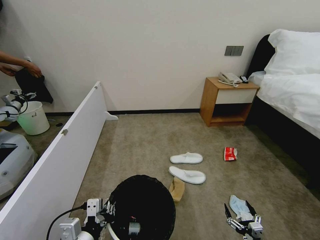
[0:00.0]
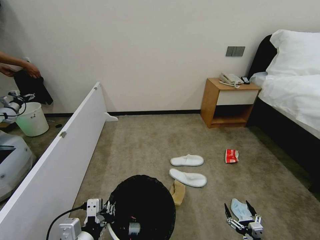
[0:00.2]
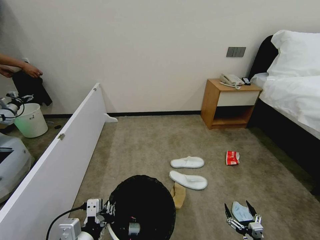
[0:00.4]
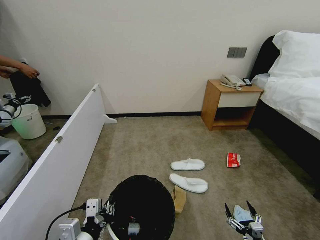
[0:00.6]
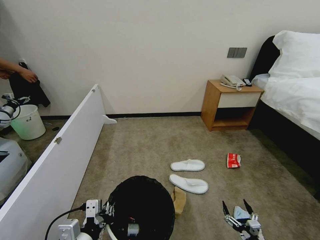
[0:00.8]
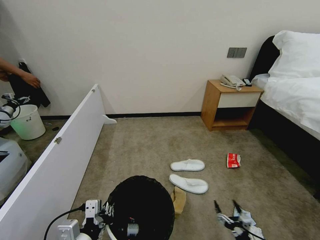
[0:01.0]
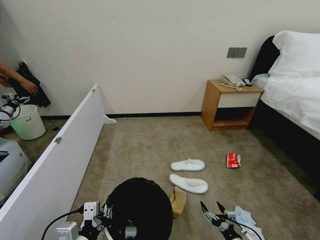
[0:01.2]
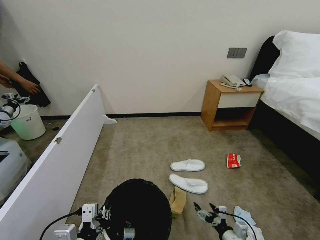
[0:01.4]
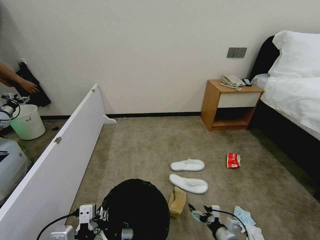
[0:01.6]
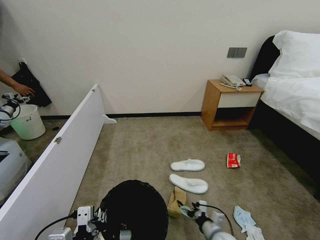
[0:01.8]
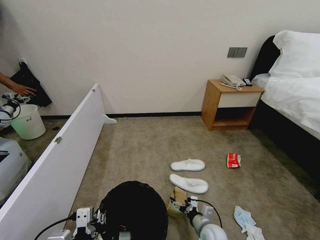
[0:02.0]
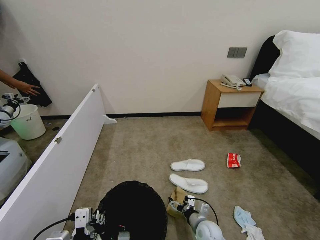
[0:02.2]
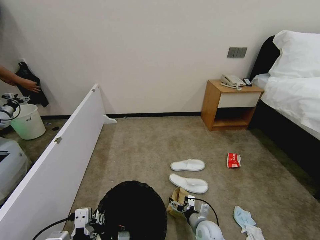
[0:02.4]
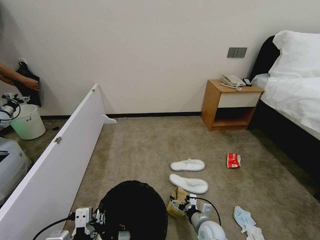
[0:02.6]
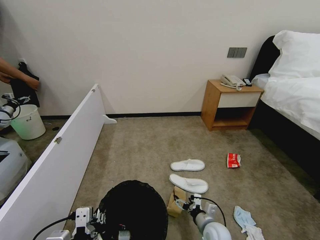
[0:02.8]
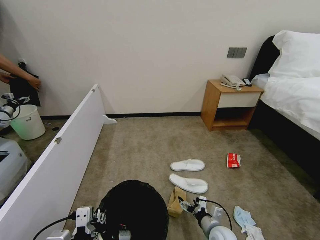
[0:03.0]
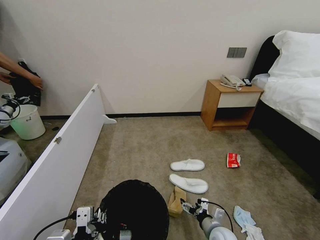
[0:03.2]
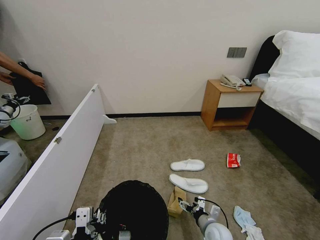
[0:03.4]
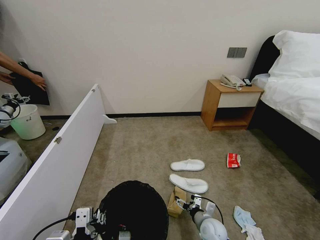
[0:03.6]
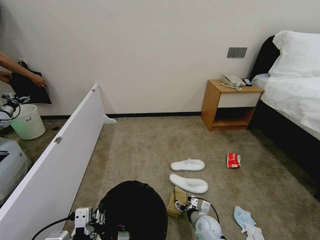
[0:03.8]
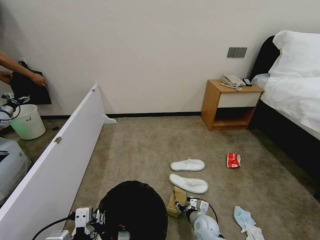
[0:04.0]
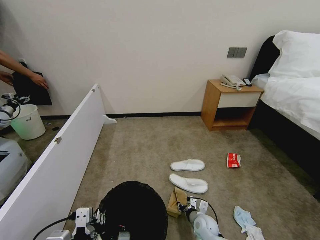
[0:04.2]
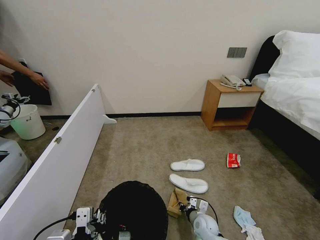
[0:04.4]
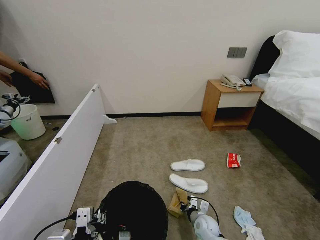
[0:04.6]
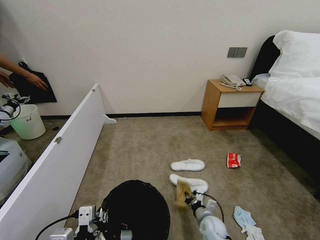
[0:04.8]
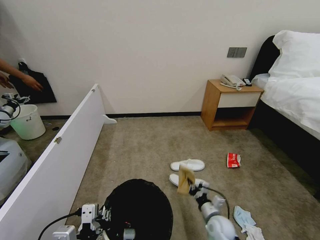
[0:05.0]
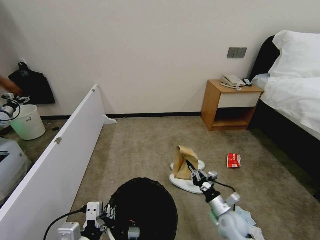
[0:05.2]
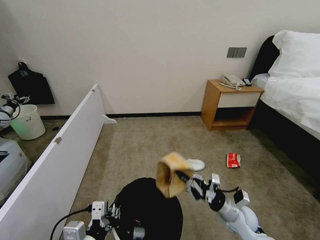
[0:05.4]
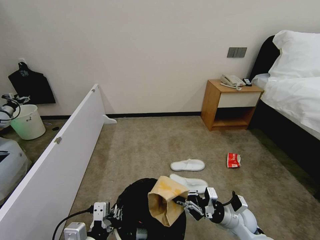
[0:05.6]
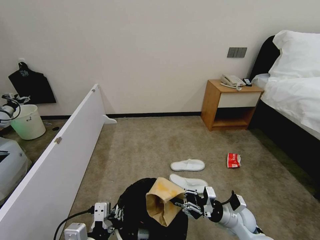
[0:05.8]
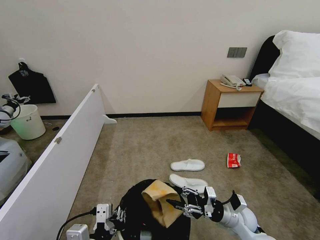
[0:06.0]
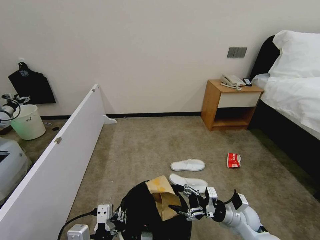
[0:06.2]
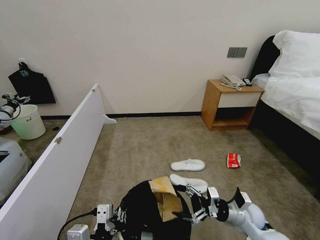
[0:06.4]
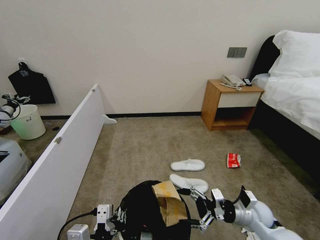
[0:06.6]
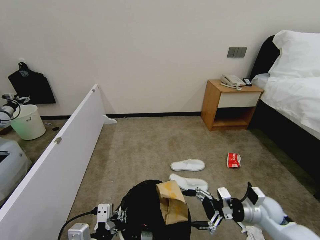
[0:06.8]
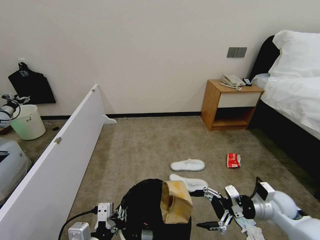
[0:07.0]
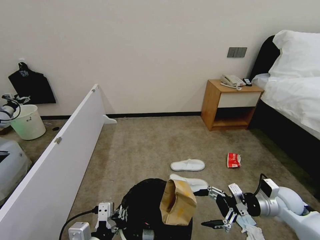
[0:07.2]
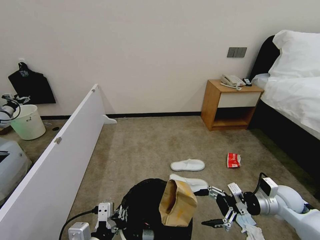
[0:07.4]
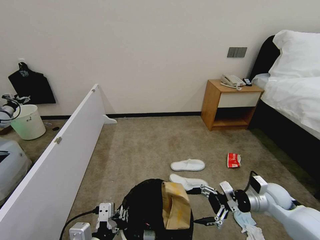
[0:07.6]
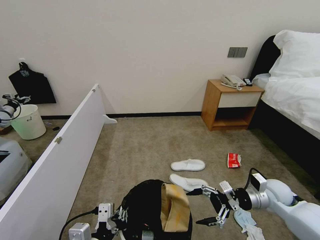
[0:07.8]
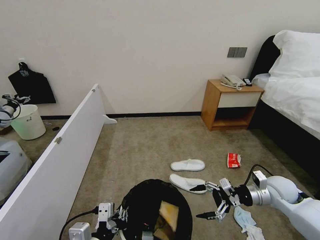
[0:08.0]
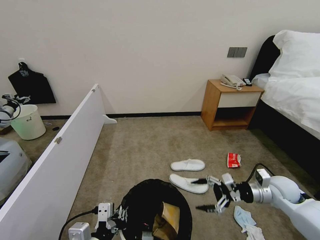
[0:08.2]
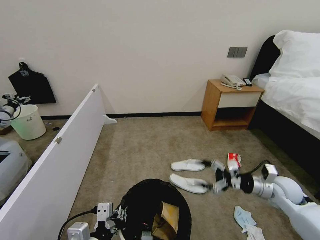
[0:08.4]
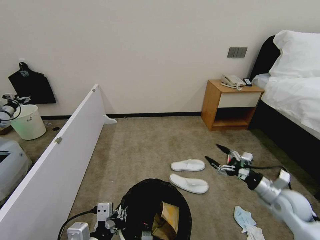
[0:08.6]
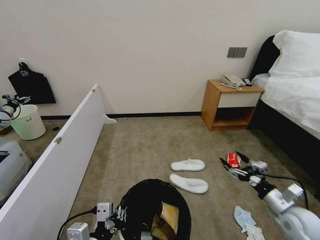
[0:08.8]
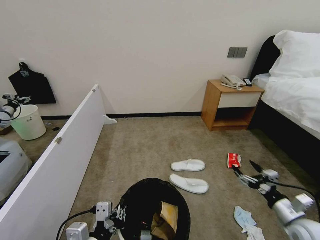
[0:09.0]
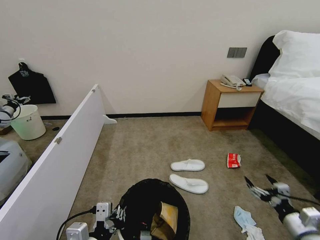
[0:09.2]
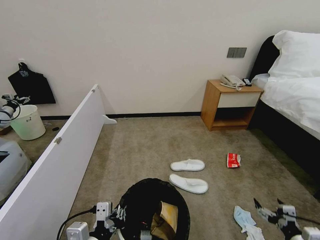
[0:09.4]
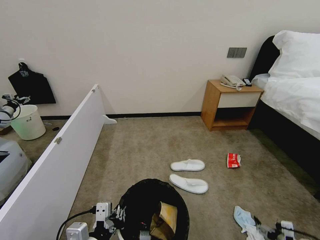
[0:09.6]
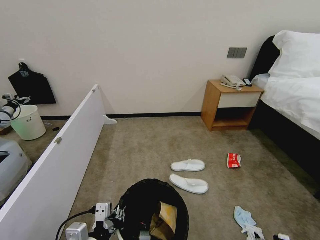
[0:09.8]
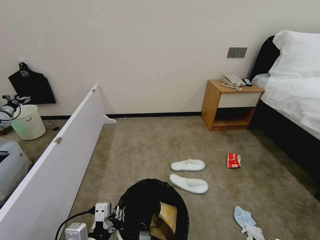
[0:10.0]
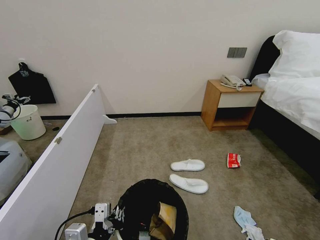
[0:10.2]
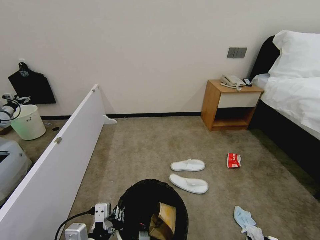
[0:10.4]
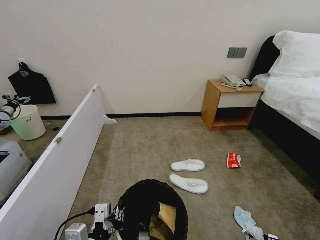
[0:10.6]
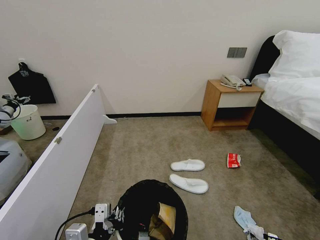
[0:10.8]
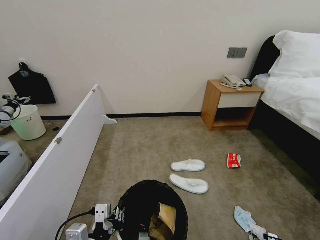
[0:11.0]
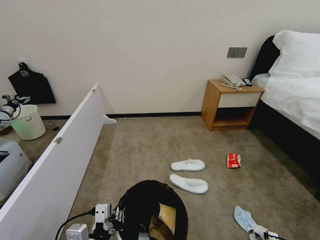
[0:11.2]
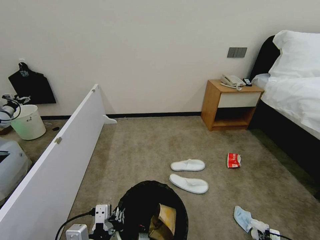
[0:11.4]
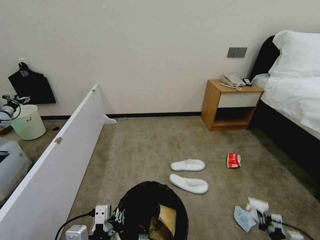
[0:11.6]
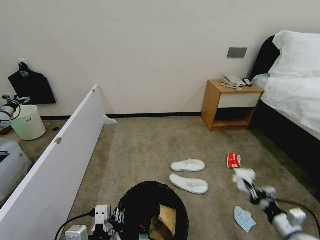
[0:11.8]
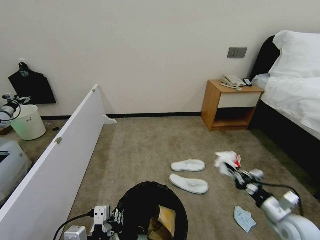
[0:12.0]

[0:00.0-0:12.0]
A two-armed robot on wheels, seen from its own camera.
Task of the whole recording: Pick up the trash bin, then pick up the garbage from the floor and place it into the trash bin.
0:00.0 to 0:01.6: The right gripper is displaced forward and to the left by some 15 cm.
0:01.6 to 0:03.0: The right gripper goes roughly 5 cm to the left.
0:03.0 to 0:04.4: The right gripper is displaced forward by some 5 cm, and closes its fingers.
0:04.4 to 0:06.0: The right gripper is displaced upward and to the right by approximately 15 cm.
0:06.0 to 0:07.6: The right gripper travels to the right and upward by about 15 cm, and opens its fingers.
0:07.6 to 0:09.0: The right gripper goes about 10 cm backward and to the right.
0:09.0 to 0:10.4: The right gripper travels downward by approximately 20 cm.
0:10.4 to 0:12.0: The right gripper goes roughly 25 cm upward and forward, and closes.

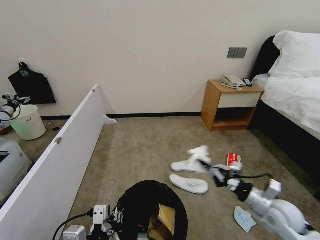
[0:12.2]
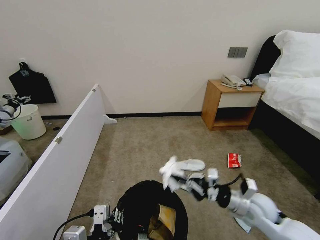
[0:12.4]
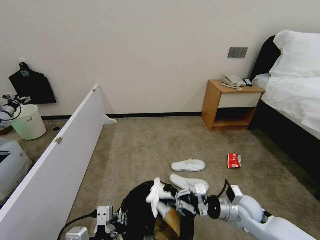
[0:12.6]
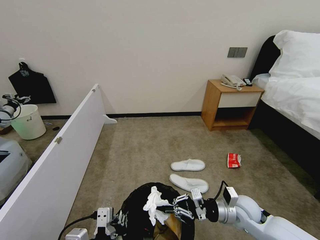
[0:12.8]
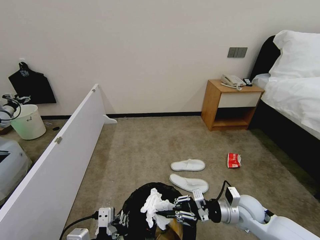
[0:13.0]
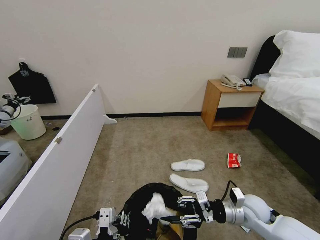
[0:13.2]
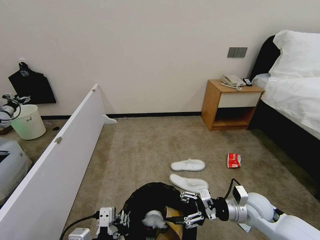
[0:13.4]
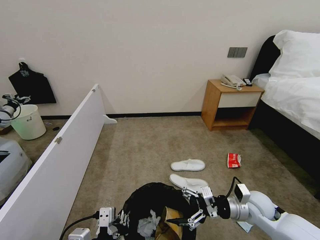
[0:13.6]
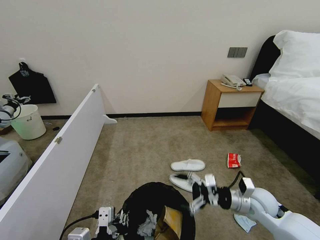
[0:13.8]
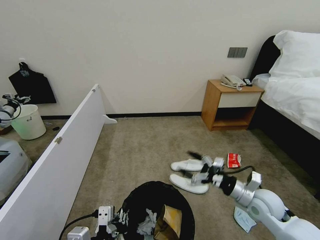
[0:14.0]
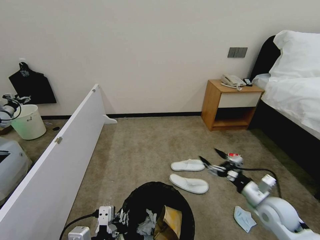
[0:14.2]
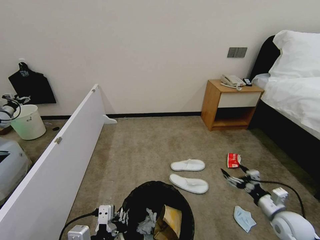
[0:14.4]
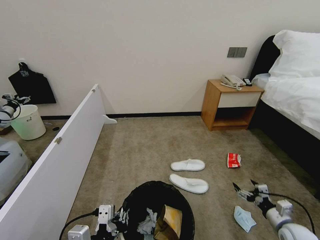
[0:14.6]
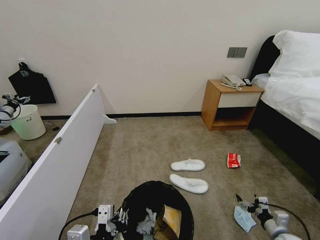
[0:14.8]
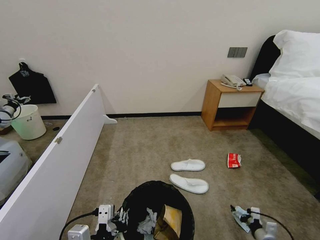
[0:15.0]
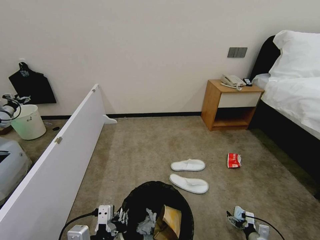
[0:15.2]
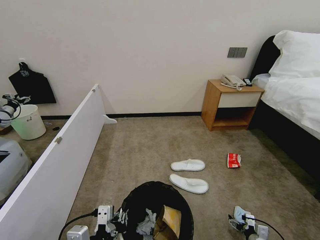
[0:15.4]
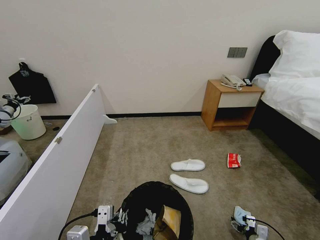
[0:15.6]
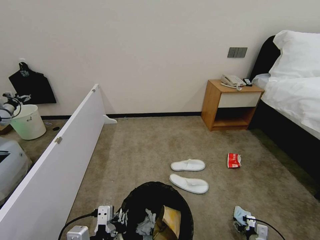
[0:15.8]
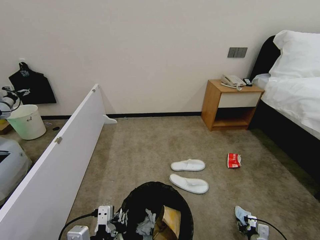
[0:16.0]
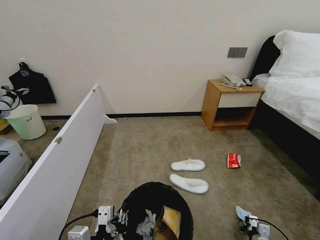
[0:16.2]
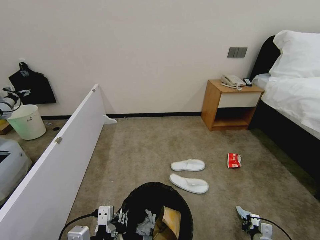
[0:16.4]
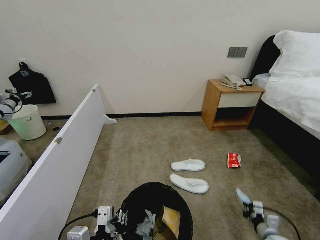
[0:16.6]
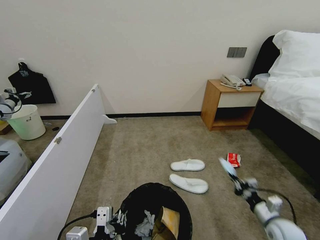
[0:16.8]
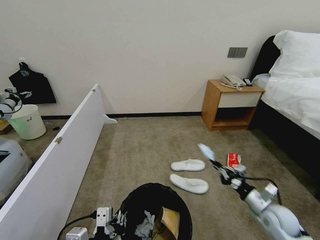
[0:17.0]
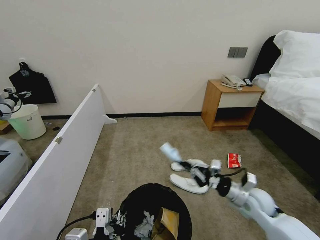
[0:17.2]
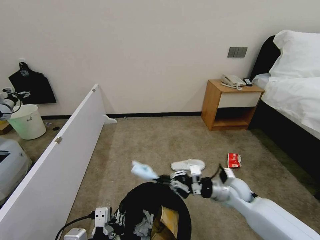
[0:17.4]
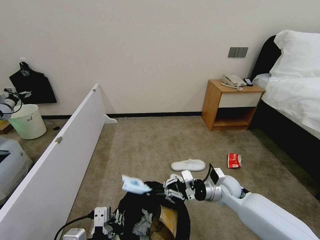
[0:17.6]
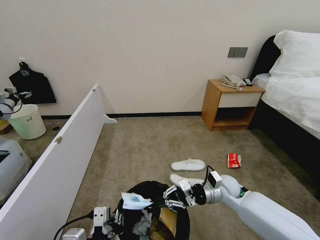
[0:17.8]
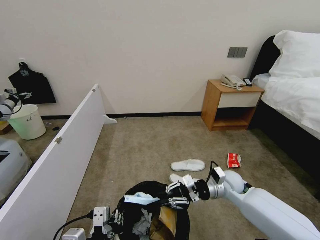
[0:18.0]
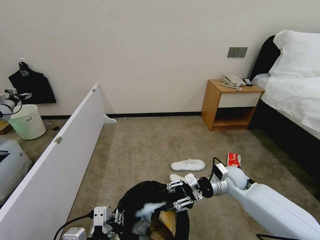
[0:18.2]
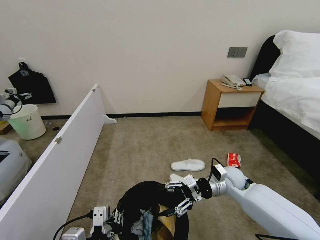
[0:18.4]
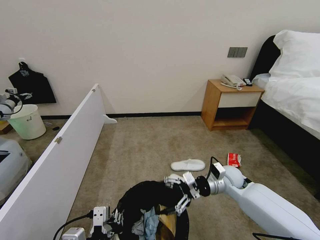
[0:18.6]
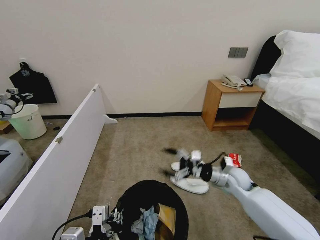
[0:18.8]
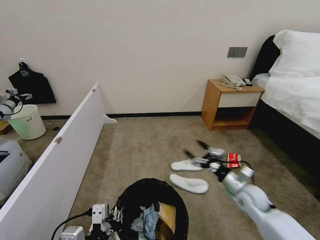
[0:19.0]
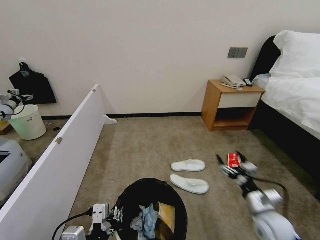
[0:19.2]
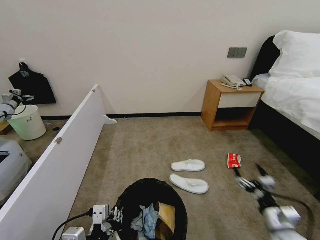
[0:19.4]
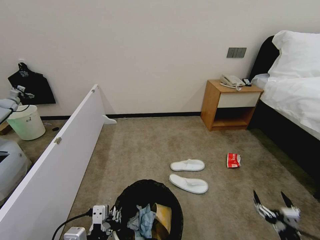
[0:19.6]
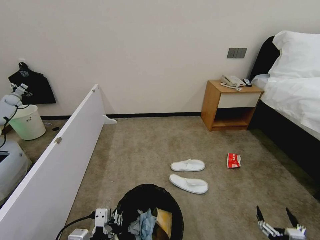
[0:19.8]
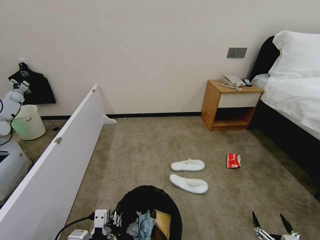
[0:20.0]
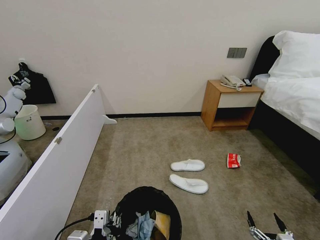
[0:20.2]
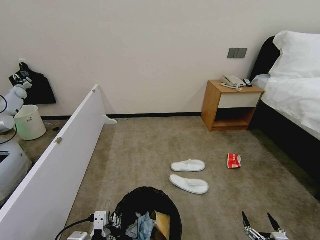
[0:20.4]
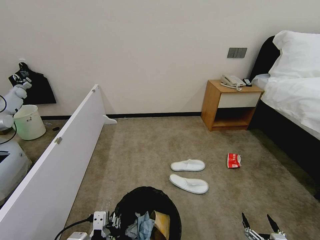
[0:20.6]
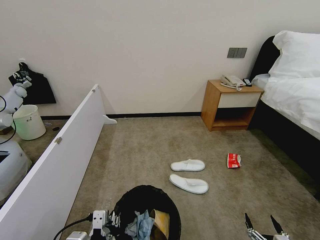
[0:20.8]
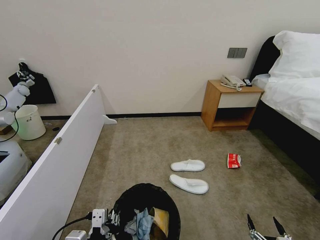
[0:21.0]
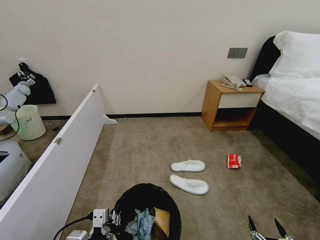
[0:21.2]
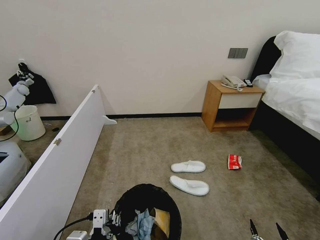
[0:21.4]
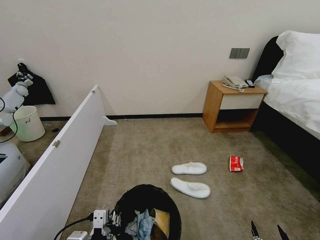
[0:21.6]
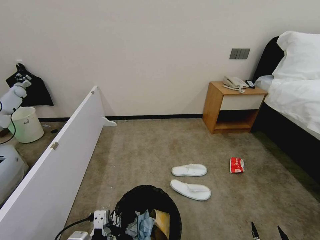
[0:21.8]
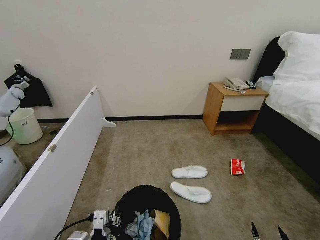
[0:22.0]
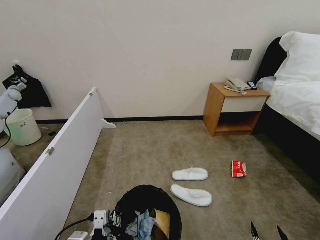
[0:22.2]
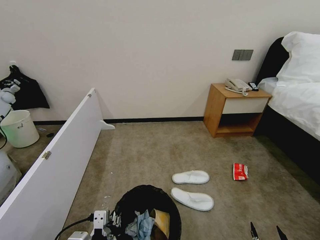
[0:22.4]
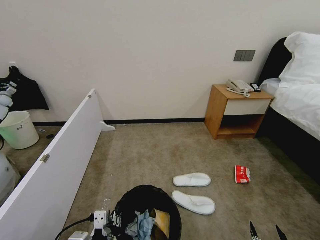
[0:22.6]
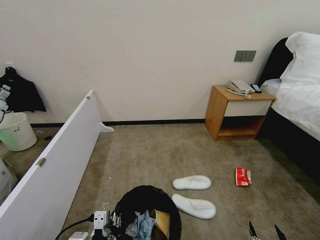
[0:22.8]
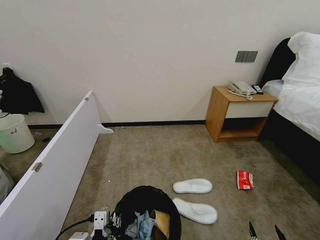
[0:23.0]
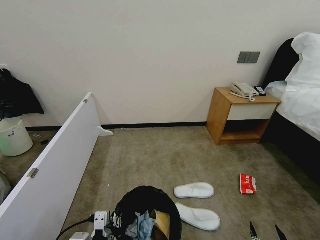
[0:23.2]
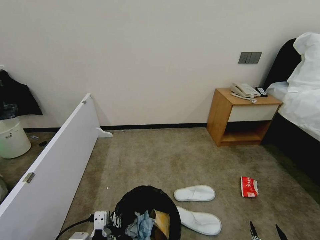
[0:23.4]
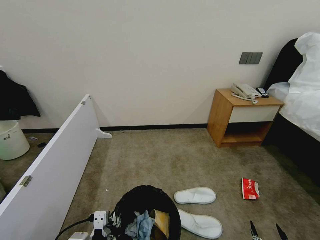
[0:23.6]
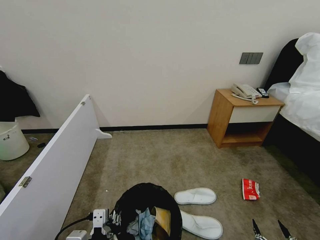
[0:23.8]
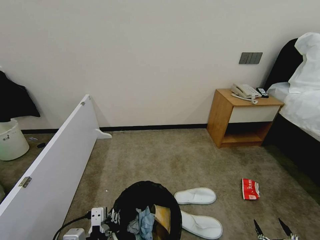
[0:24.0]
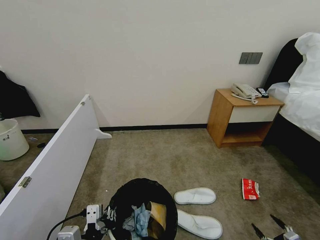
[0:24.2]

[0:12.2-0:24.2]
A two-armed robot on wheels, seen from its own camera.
Task of the whole recording: Pick up the trash bin, then pick up the garbage from the floor and place it into the trash bin.
0:12.2 to 0:13.8: The right gripper opens.
0:13.8 to 0:15.2: The right gripper goes about 30 cm downward and to the right.
0:15.2 to 0:16.6: The right gripper shifts approximately 5 cm upward, and closes up.
0:16.6 to 0:18.2: The right gripper is displaced upward, to the left and forward by about 30 cm, and opens up.
0:18.2 to 0:19.8: The right gripper goes some 35 cm backward and to the right, and opens its fingers.
0:19.8 to 0:21.2: The right gripper is displaced downward by some 5 cm.
0:21.2 to 0:22.6: The grippers move only a little.
0:22.6 to 0:24.2: The right gripper is displaced to the right by approximately 15 cm.
